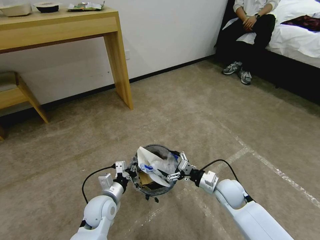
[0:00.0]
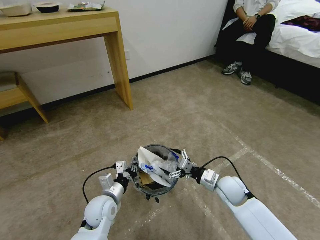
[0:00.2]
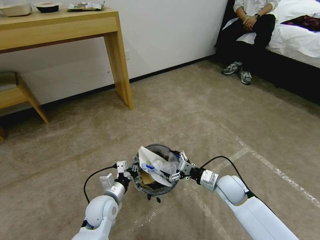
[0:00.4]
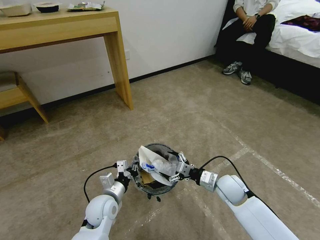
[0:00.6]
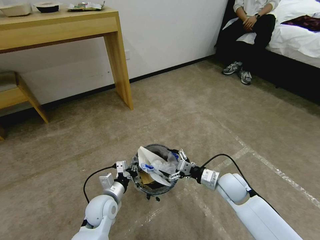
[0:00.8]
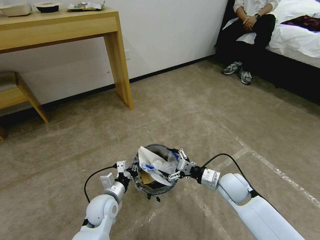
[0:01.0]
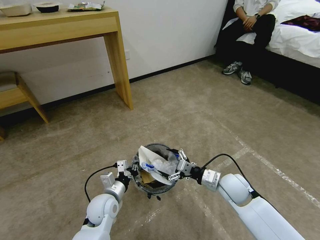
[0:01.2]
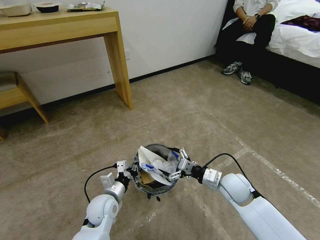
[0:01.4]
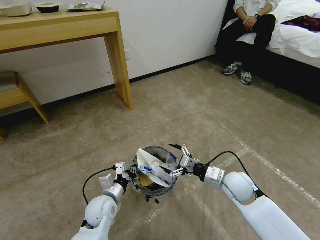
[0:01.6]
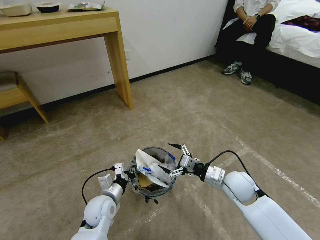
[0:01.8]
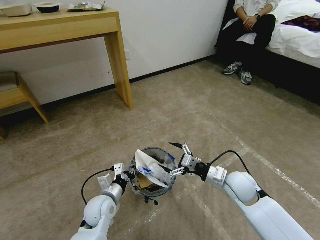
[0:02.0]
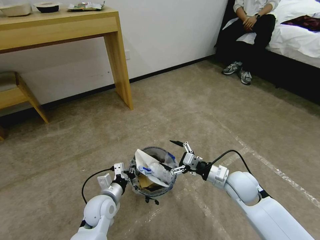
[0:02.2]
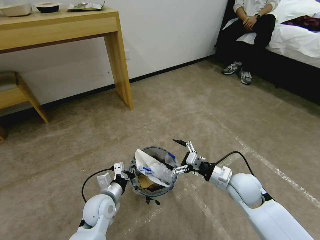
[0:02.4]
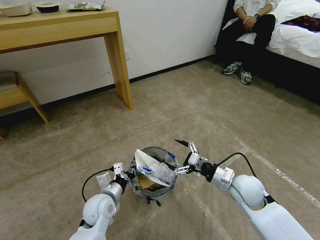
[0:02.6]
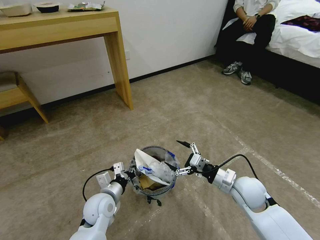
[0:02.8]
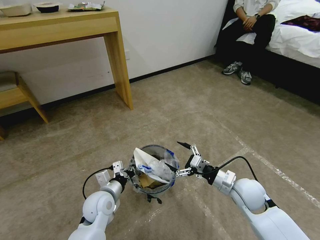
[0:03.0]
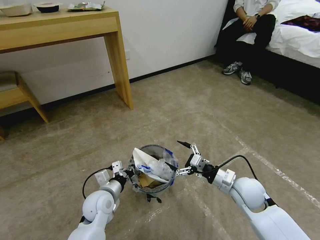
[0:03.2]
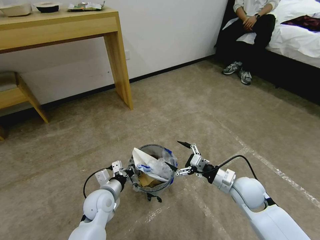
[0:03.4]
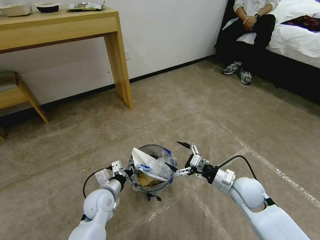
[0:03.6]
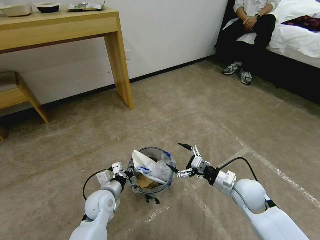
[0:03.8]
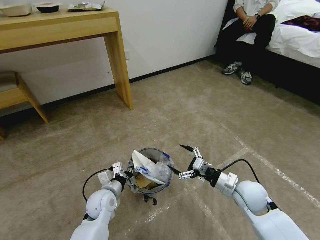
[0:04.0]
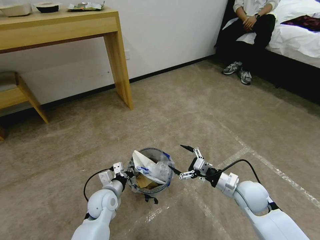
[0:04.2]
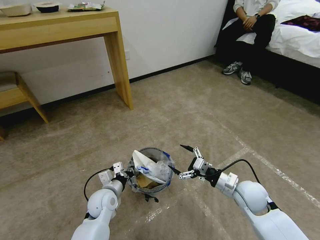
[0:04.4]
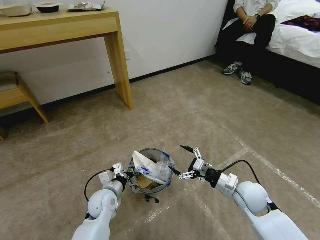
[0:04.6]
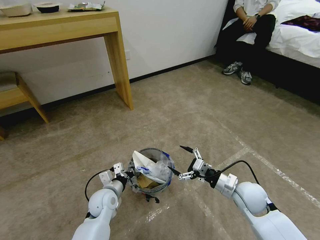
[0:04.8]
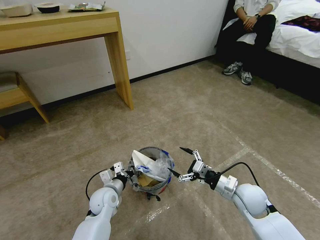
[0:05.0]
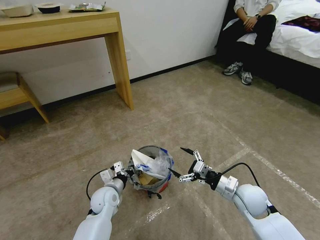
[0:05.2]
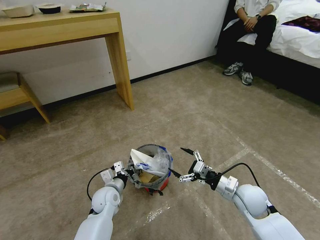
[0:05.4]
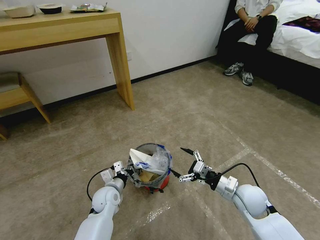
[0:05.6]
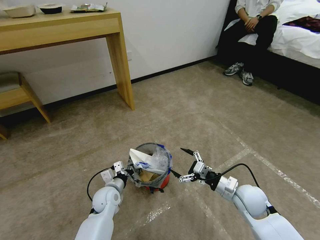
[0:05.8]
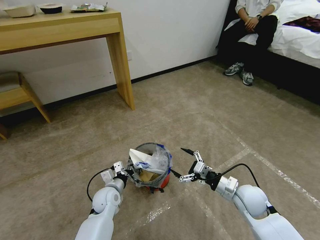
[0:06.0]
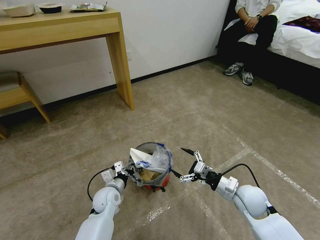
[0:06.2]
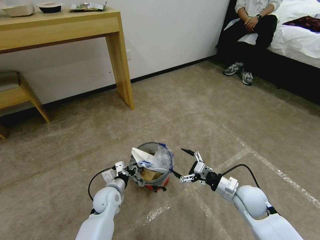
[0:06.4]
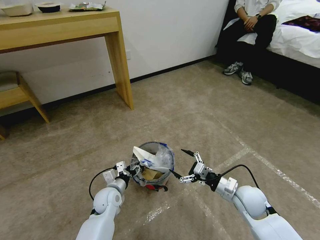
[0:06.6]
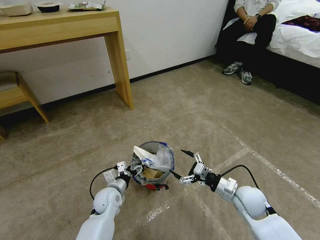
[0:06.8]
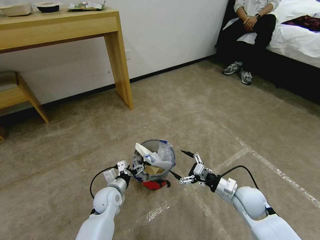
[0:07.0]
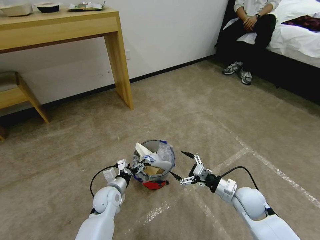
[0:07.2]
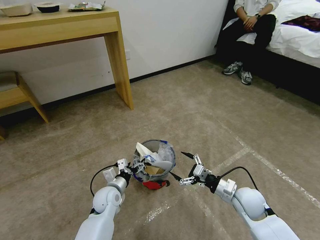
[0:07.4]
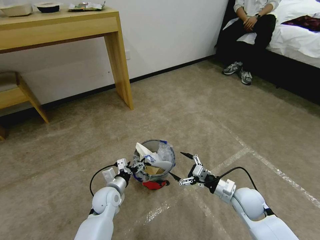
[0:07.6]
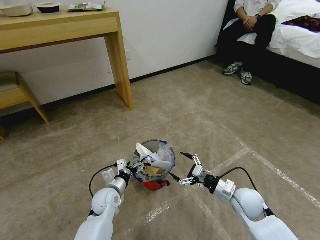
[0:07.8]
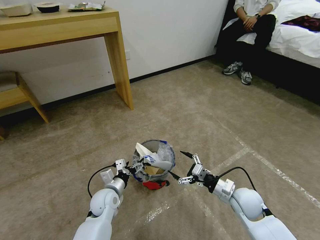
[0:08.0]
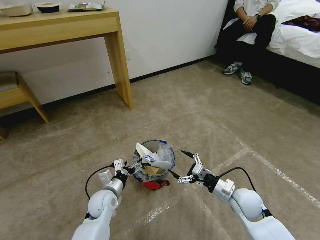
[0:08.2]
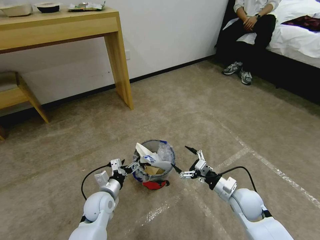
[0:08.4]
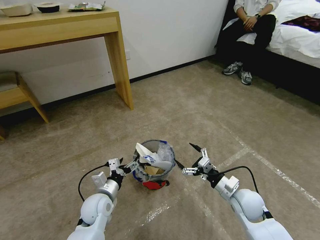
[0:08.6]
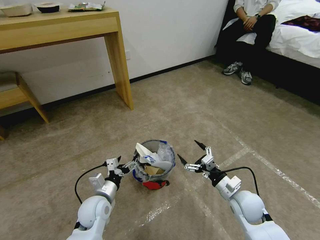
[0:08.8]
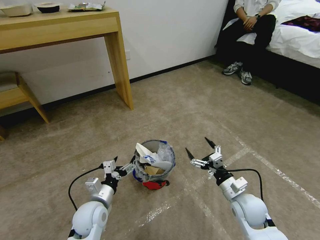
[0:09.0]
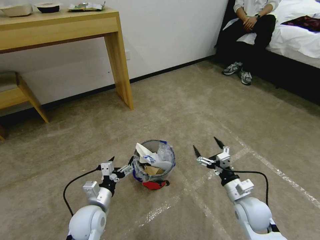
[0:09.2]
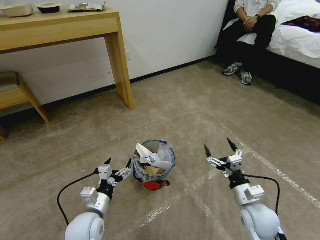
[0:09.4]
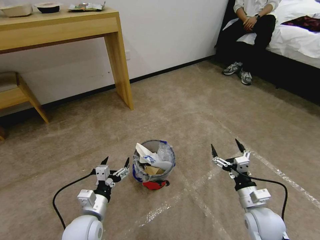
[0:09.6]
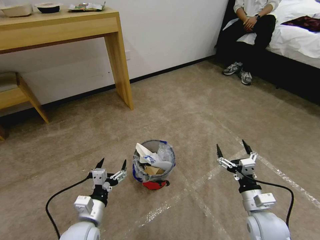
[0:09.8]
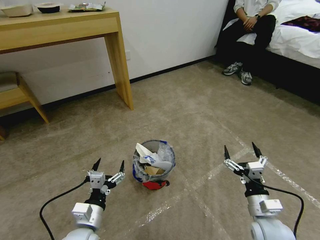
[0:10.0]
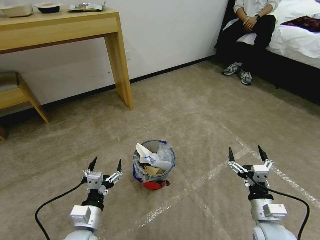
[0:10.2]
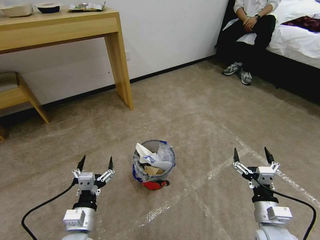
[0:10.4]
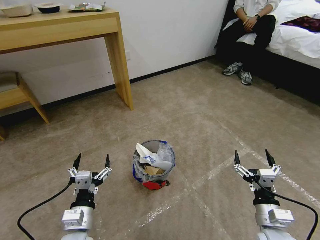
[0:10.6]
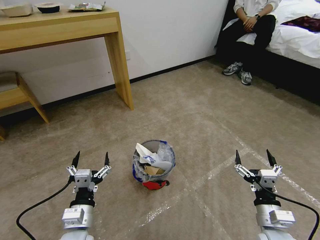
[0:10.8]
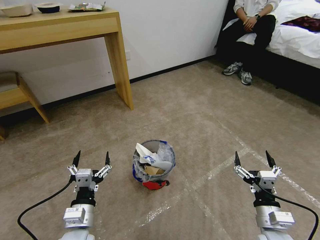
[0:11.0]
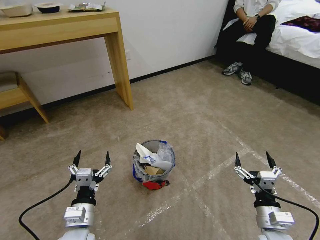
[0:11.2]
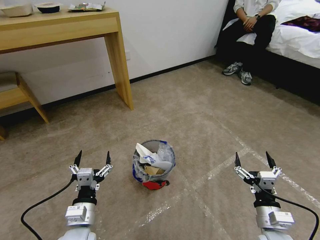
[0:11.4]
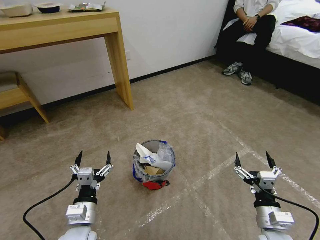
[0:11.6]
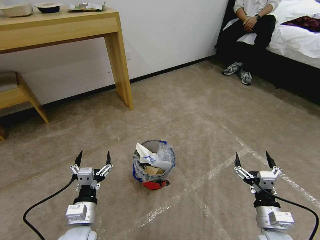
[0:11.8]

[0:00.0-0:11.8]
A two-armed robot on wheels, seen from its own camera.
Task of the whole recording: Pick up the trash bin and place the garbage on the floor into it.
0:00.0 to 0:01.4: The grippers move only a little.
0:01.4 to 0:04.4: There are only small adjustments of the grippers.
0:04.4 to 0:06.0: The grippers make only small movements.
0:06.0 to 0:07.4: The left gripper opens up.
0:07.4 to 0:08.8: The left gripper heads backward, covering some 5 cm.
0:08.8 to 0:10.4: The grippers both shift backward by about 10 cm.
0:10.4 to 0:11.8: The grippers make only small movements.

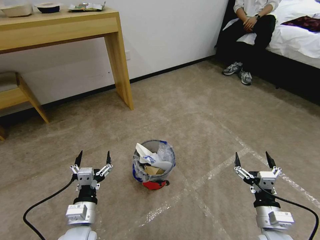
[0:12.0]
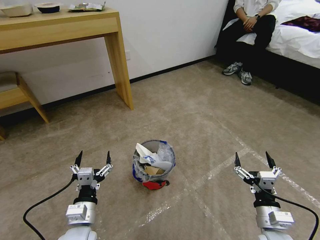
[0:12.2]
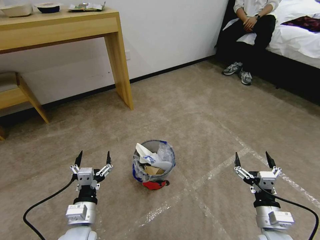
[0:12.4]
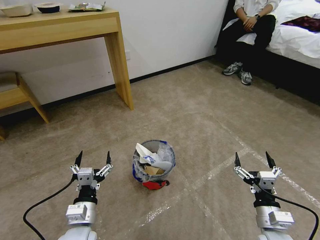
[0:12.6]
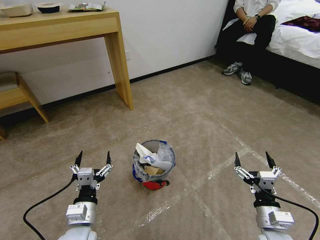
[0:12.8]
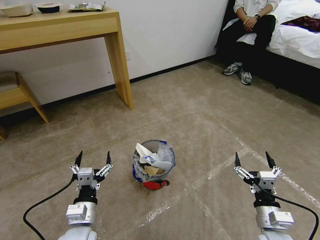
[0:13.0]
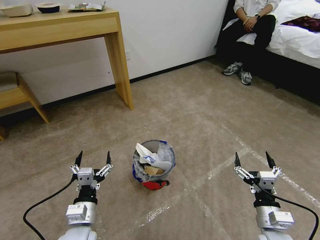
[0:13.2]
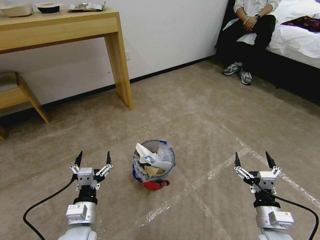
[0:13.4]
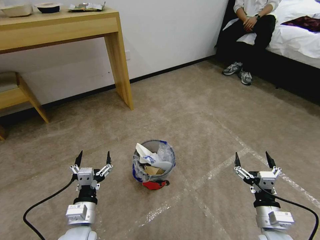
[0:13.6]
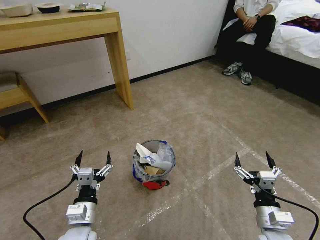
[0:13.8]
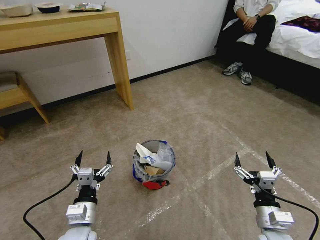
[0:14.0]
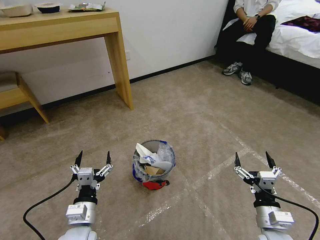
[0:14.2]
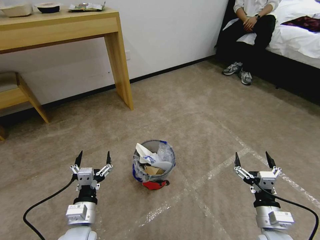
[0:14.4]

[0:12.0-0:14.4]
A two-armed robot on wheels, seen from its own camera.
Task of the whole recording: Pick up the trash bin and place the garbage on the floor into it.
0:12.0 to 0:14.4: Both grippers stay put.
